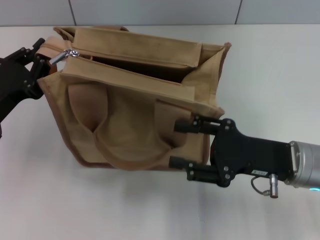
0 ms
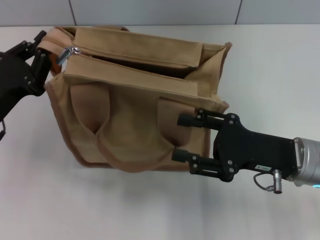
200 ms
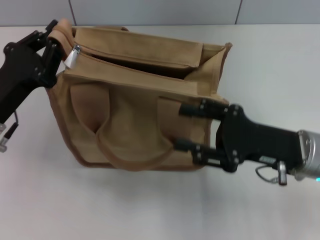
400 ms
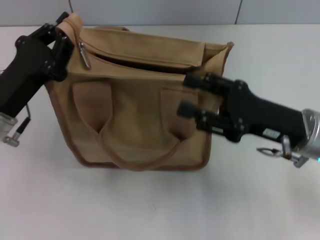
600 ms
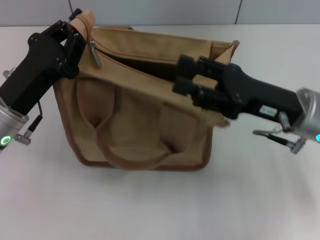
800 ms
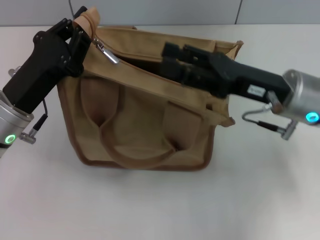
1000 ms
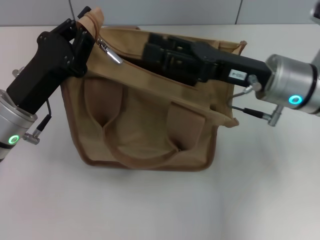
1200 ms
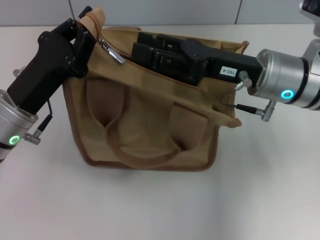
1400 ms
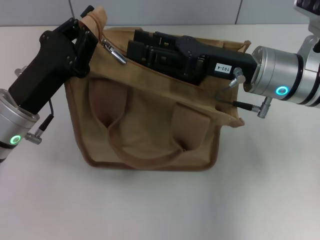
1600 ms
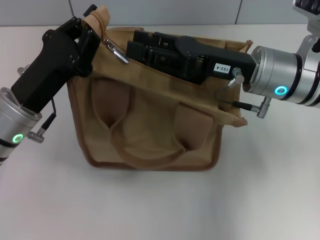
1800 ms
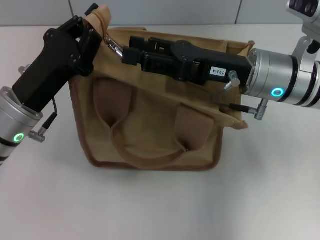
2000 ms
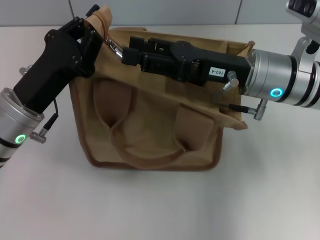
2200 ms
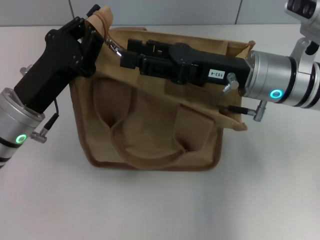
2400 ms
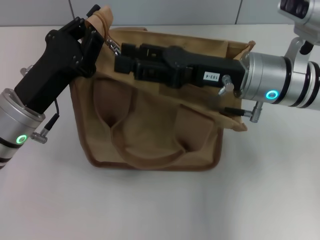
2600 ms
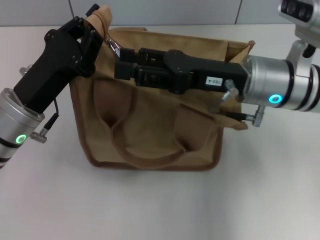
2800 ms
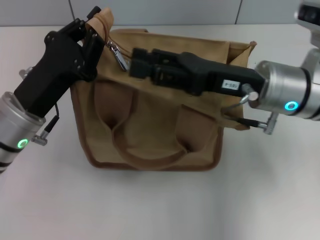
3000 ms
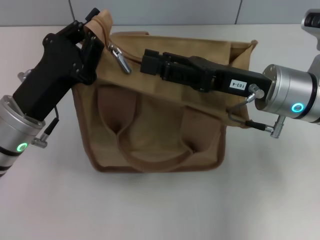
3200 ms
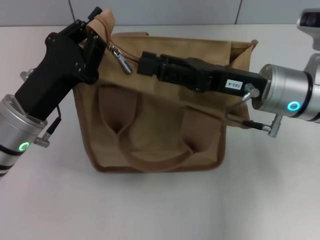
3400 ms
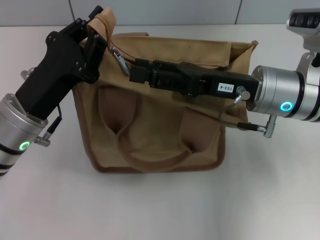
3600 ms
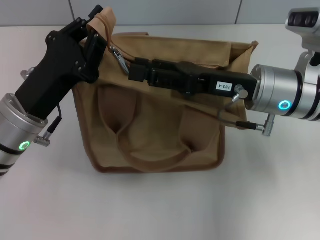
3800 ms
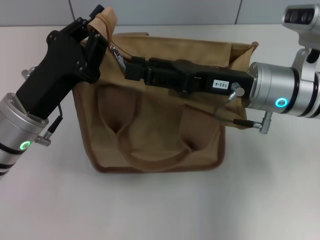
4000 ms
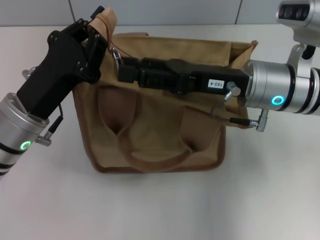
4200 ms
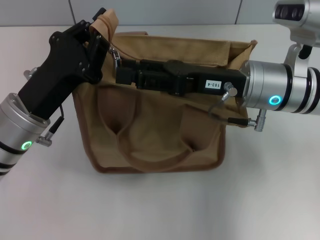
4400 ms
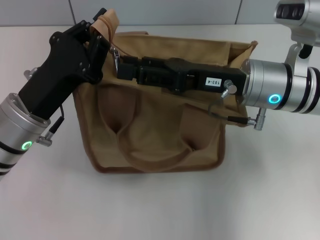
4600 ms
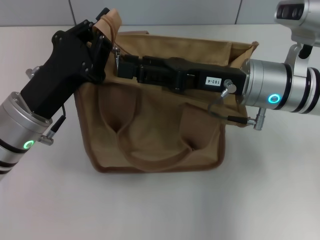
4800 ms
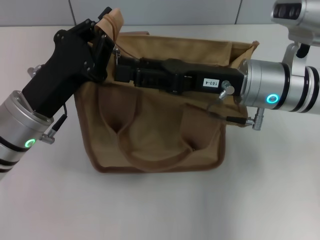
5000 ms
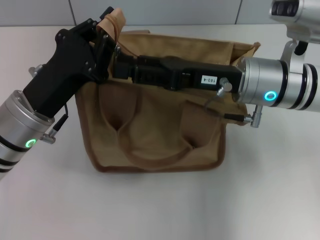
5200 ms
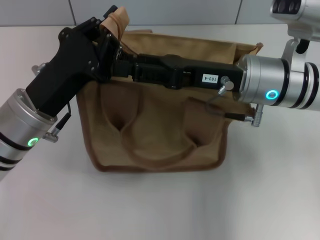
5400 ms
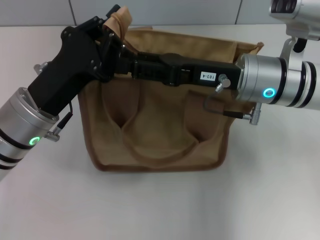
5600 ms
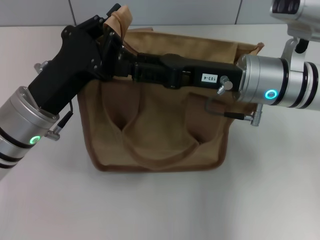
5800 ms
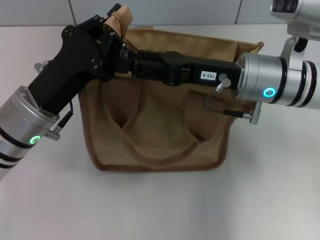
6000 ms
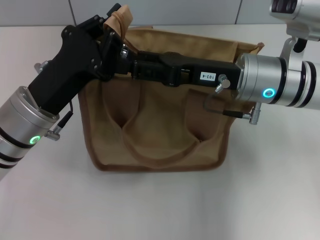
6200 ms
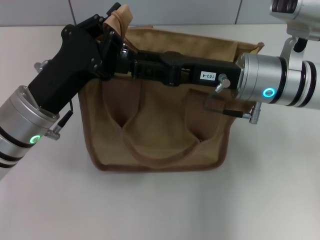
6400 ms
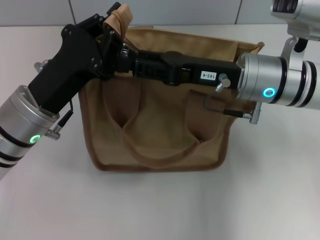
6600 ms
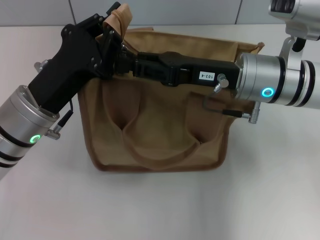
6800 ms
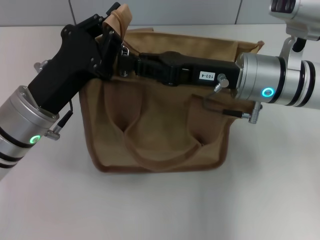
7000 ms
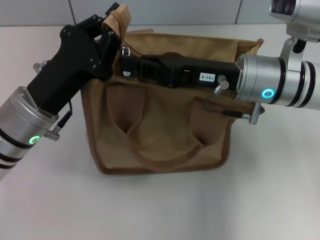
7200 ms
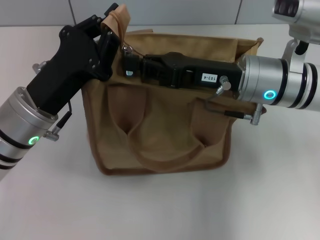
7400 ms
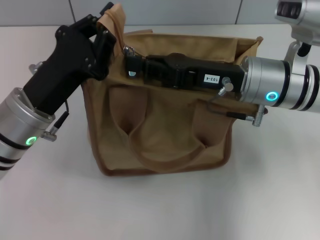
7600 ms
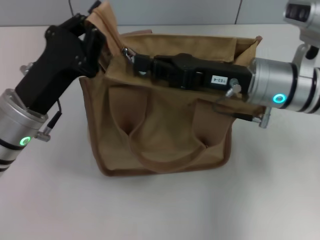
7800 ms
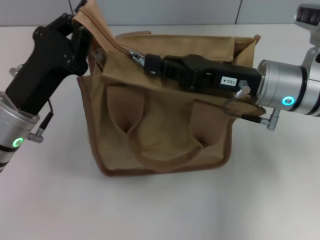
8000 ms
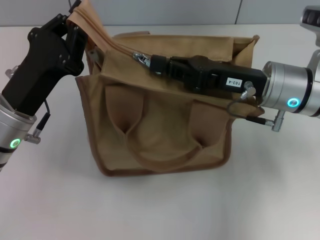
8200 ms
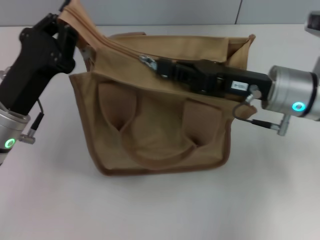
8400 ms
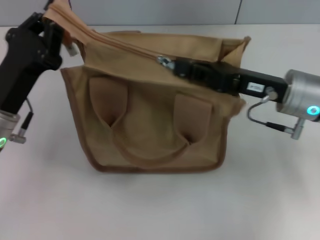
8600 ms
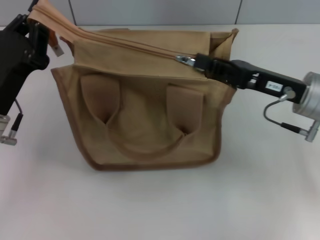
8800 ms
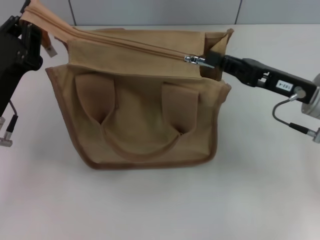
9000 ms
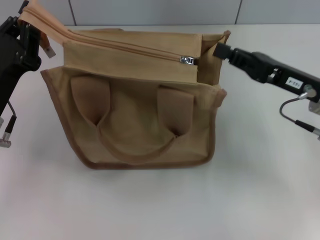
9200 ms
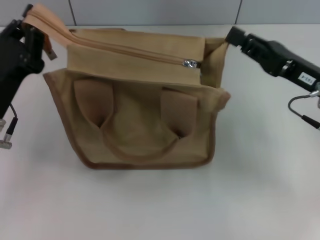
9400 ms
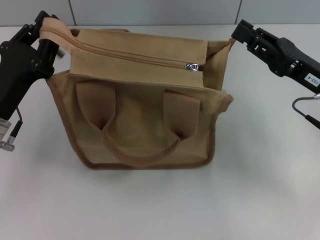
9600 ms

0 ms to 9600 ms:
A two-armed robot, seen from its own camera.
Step, 0 ms to 9000 ms: Pull up the zipper with your right hand.
0 ms to 1600 ms: The right gripper is displaced forward, upward and to the left by about 10 cm. Meanwhile the left gripper moves to the right, approximately 5 cm.
3200 ms to 4800 ms: The grippers make only small movements.
4800 ms to 6400 ms: Neither gripper changes place.
6400 ms to 8000 ms: The right gripper closes its fingers.
8000 ms to 9600 ms: The right gripper moves to the right, approximately 10 cm.

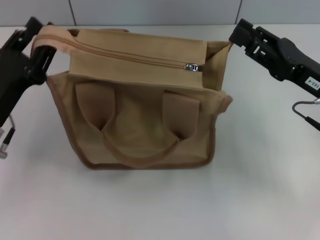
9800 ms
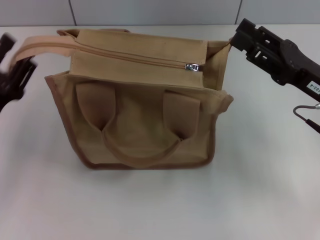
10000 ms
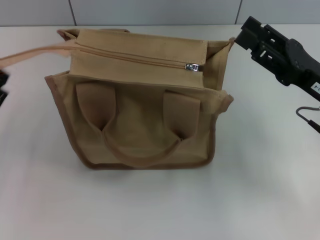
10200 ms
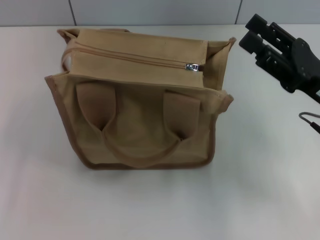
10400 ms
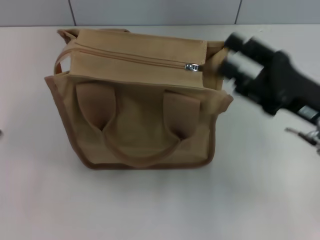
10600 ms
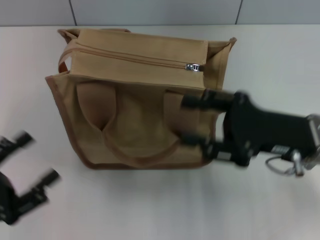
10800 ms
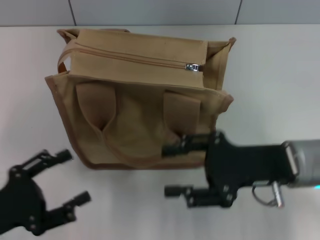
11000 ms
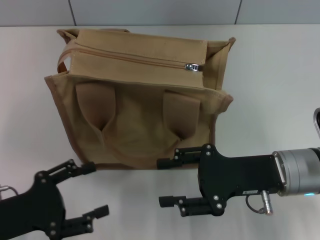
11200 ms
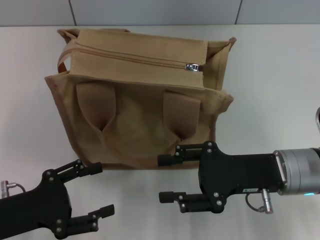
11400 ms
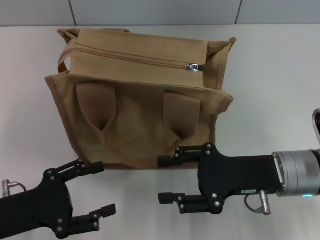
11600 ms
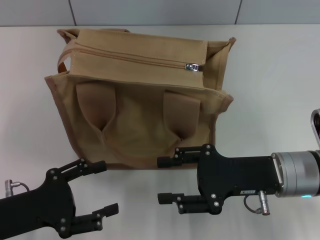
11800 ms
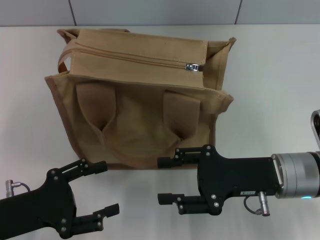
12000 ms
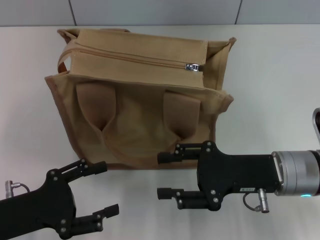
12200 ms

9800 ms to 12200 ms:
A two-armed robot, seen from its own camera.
9800 ms to 11000 ms: The right gripper is displaced to the left by some 5 cm, and opens; the left gripper shifts about 10 cm backward, and opens up.
11000 ms to 12200 ms: The grippers move only a little.

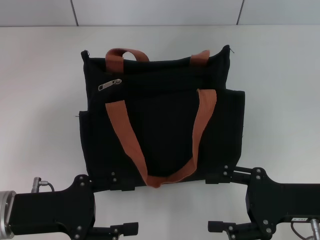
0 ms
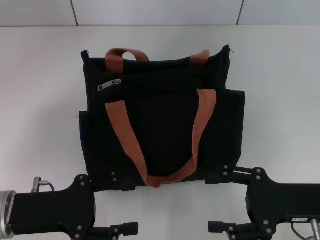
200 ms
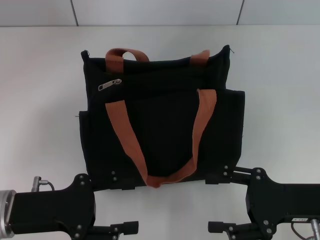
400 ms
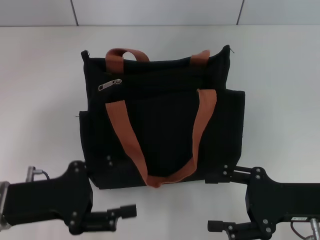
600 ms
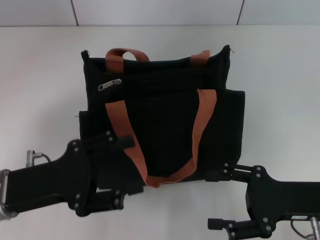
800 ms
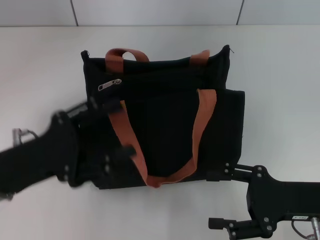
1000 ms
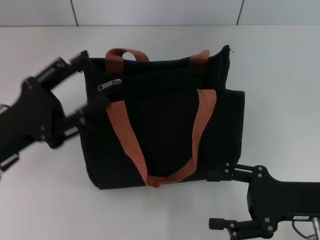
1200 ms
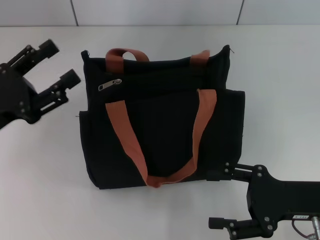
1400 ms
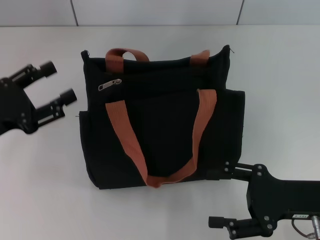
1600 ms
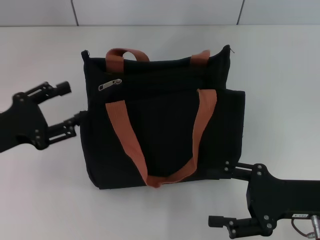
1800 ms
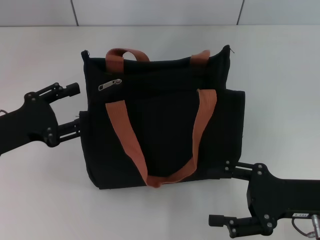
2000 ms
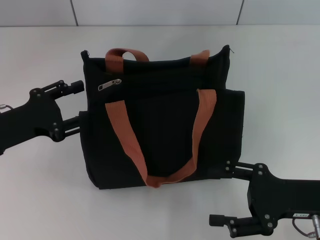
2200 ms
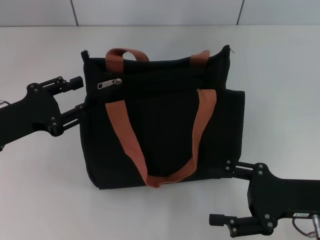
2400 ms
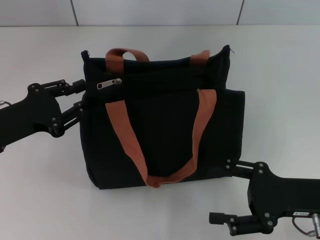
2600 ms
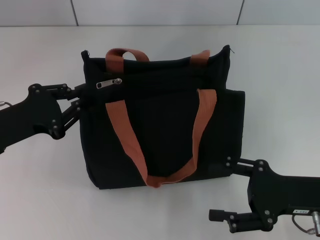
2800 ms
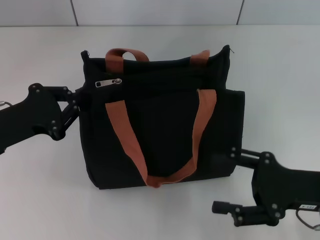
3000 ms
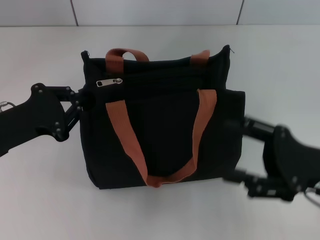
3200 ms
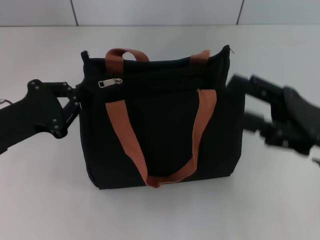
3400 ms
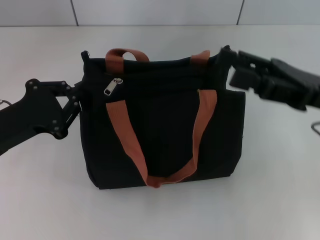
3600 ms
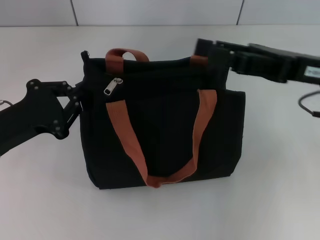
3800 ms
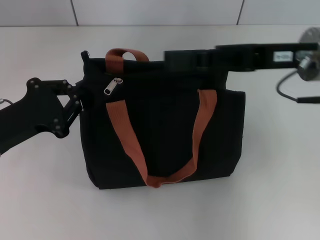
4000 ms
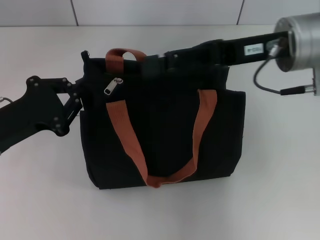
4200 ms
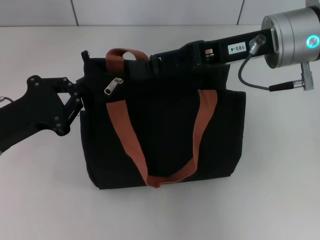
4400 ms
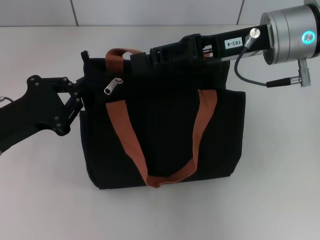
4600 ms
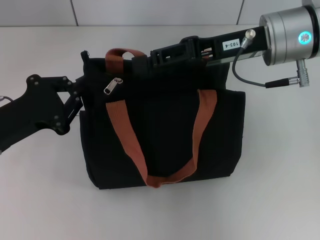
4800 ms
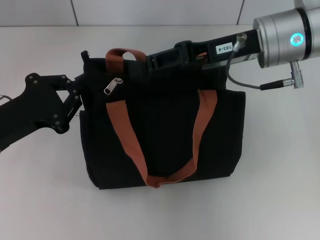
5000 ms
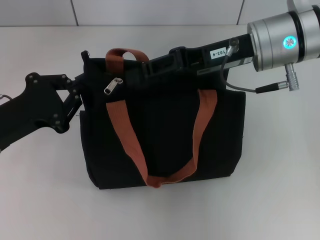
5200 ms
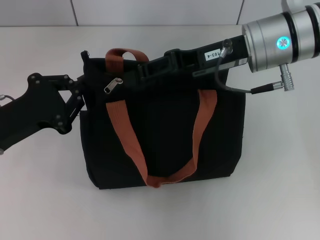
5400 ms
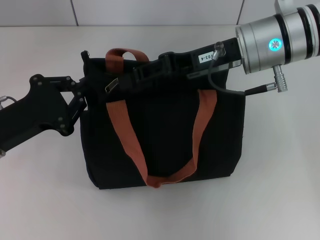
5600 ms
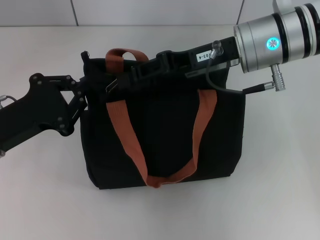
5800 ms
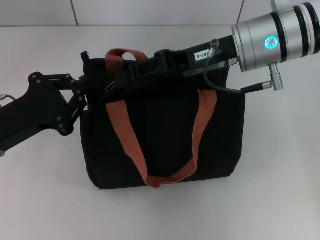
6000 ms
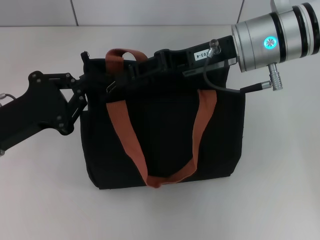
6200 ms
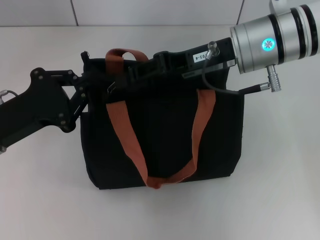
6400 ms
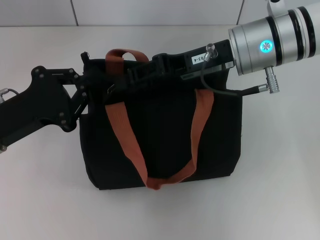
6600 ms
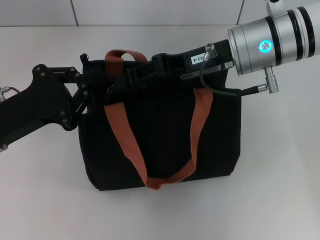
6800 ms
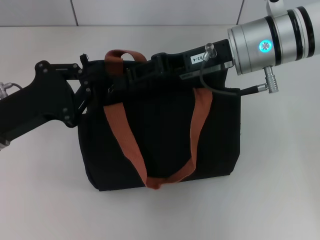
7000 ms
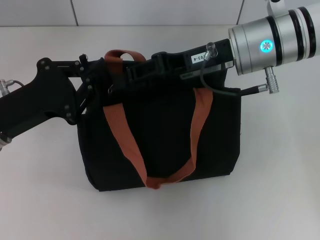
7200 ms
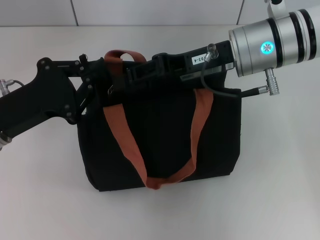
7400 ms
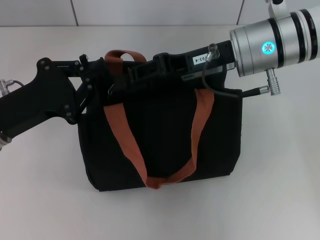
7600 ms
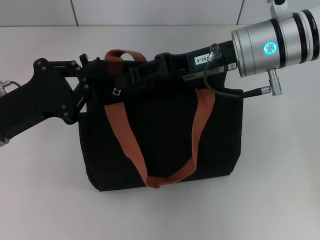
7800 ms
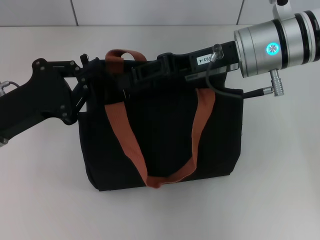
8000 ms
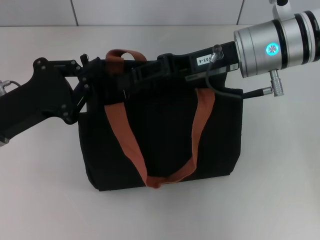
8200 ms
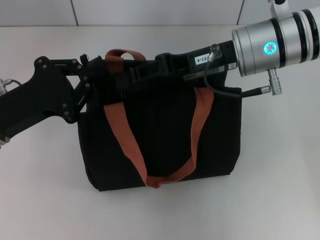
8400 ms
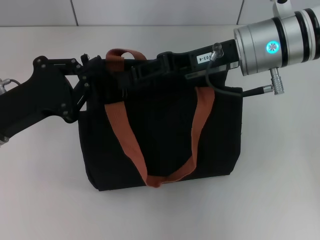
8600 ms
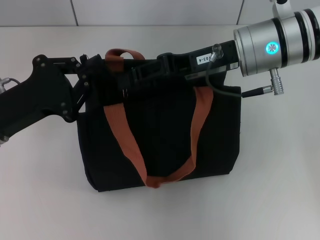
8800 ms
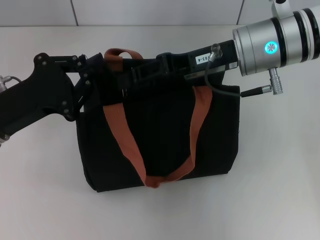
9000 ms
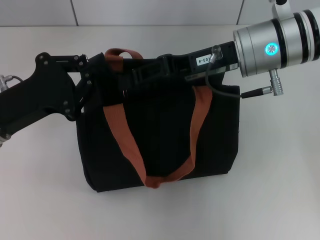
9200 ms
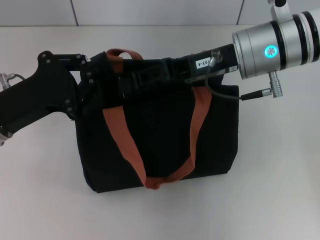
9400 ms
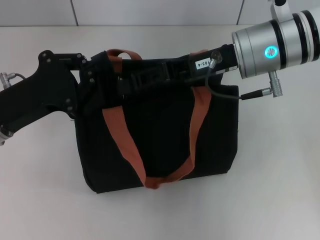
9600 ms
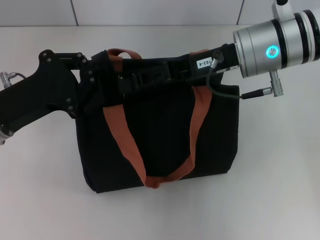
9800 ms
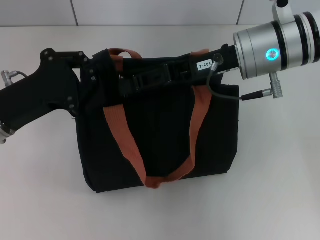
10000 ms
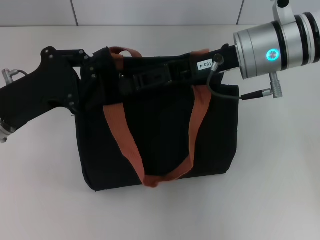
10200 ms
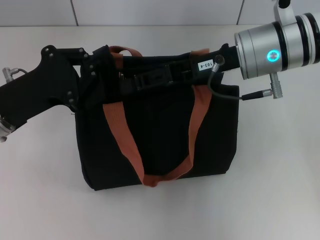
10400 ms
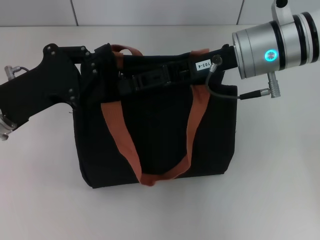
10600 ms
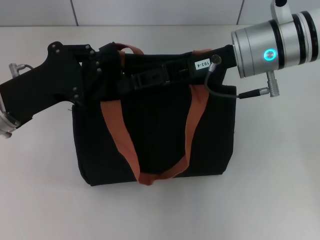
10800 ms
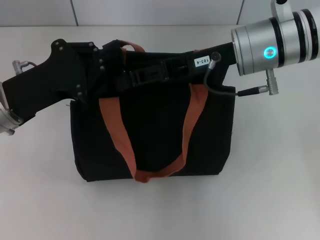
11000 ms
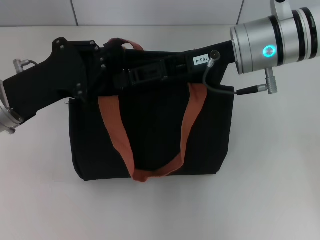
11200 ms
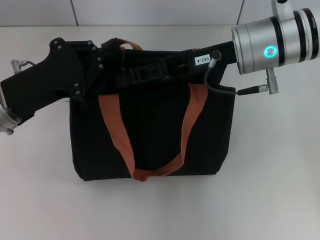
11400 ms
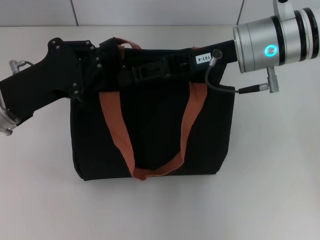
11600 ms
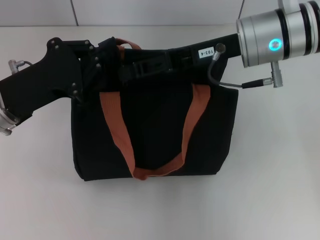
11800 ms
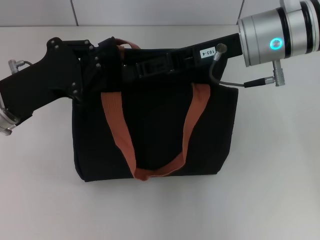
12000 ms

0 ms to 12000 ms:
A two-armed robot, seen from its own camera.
0 ms to 1600 ms: The left gripper is displaced to the left and forward by roughly 10 cm.
1600 ms to 3000 ms: The left gripper closes up.
3000 ms to 4400 ms: The right gripper shifts approximately 20 cm upward, forward and to the left.
4400 ms to 6000 ms: The right gripper closes up.
6000 ms to 7600 ms: The grippers move only a little.
7600 ms to 9000 ms: Both grippers stay about where they are.
9000 ms to 12000 ms: There are only small adjustments of the grippers.
